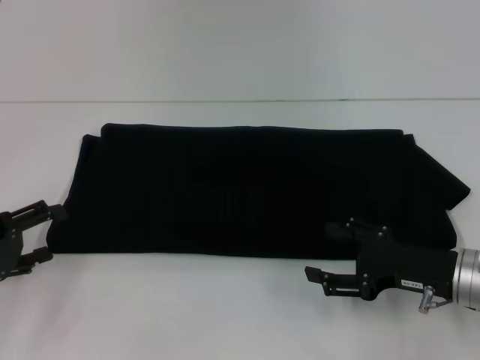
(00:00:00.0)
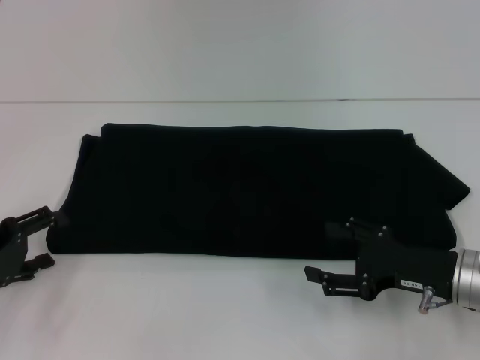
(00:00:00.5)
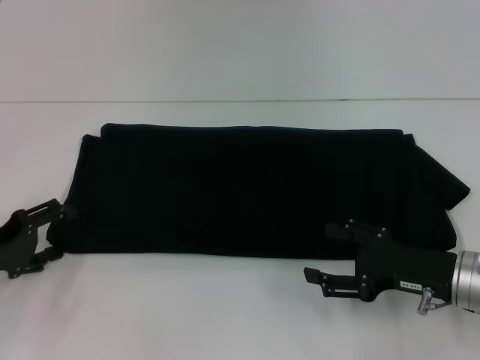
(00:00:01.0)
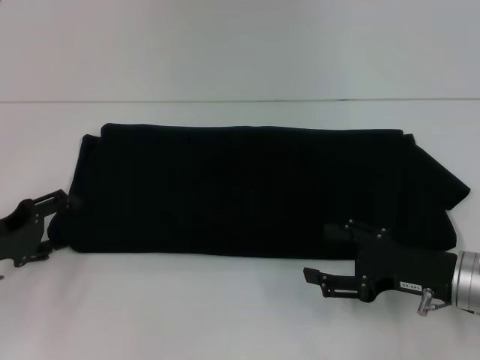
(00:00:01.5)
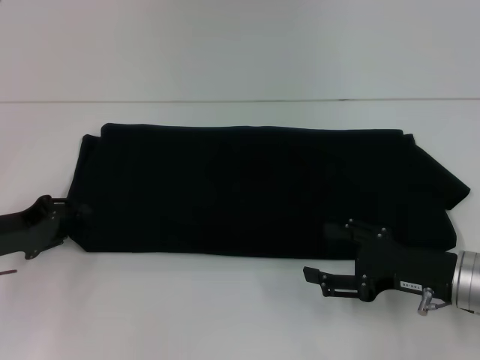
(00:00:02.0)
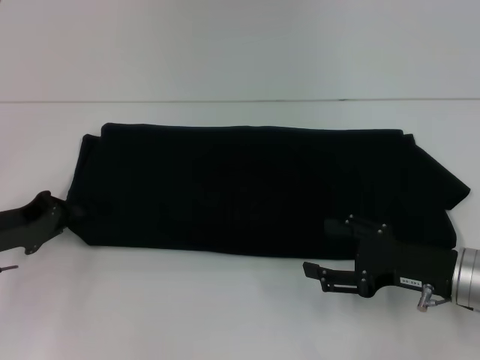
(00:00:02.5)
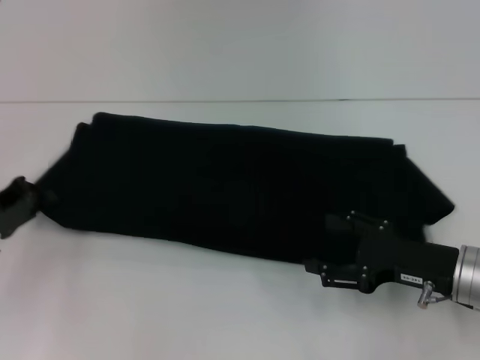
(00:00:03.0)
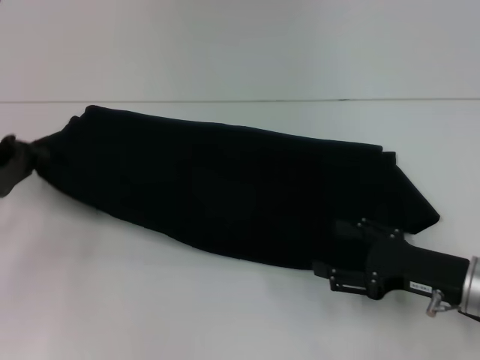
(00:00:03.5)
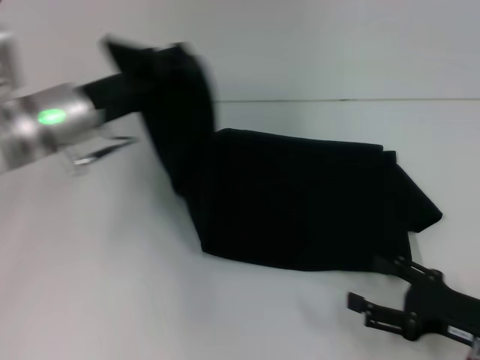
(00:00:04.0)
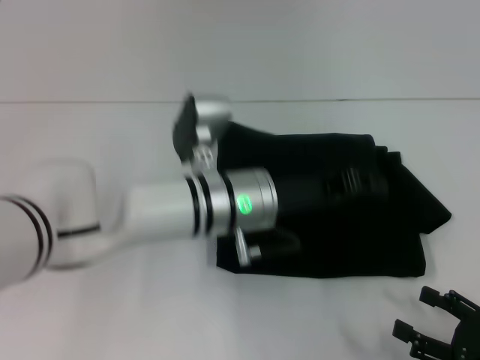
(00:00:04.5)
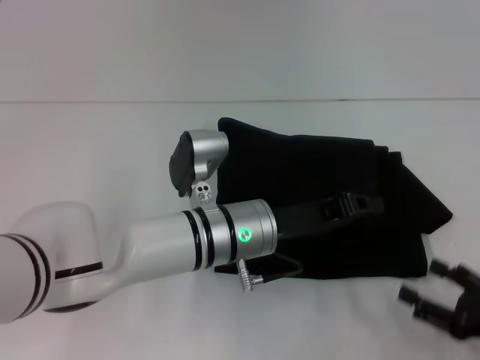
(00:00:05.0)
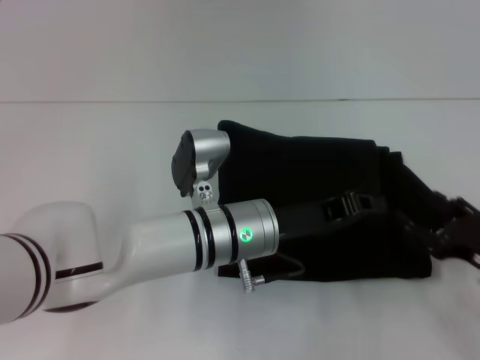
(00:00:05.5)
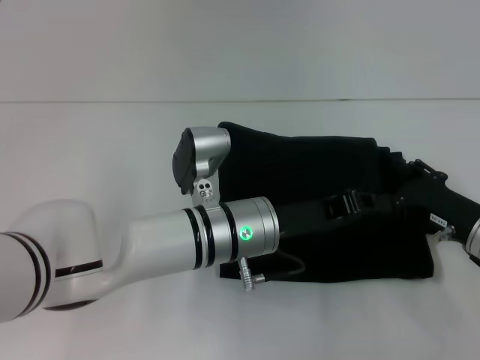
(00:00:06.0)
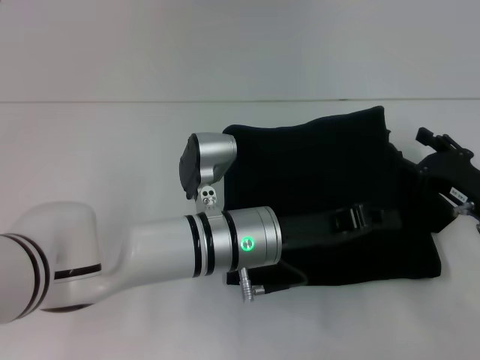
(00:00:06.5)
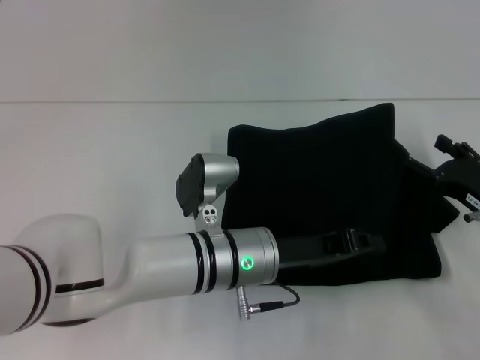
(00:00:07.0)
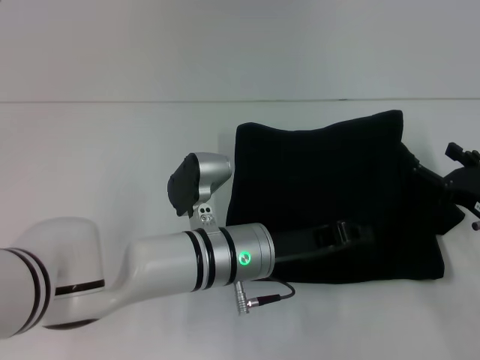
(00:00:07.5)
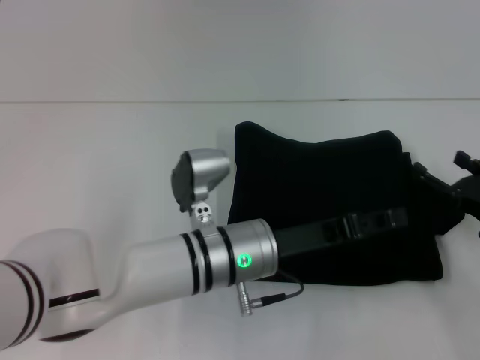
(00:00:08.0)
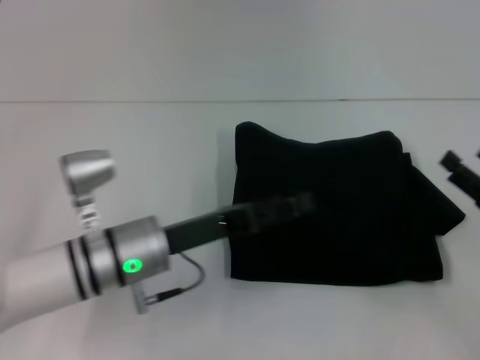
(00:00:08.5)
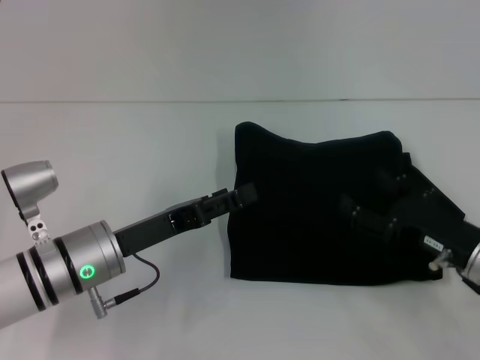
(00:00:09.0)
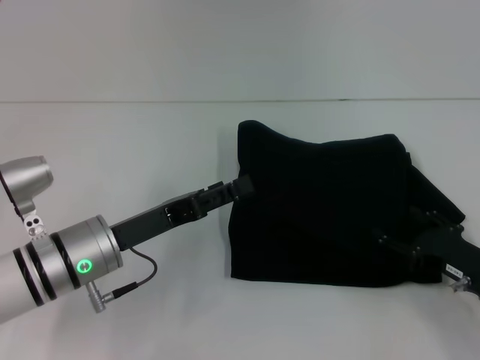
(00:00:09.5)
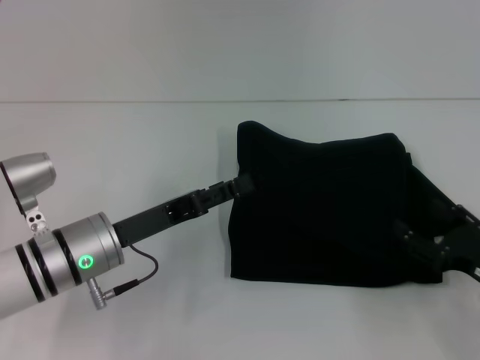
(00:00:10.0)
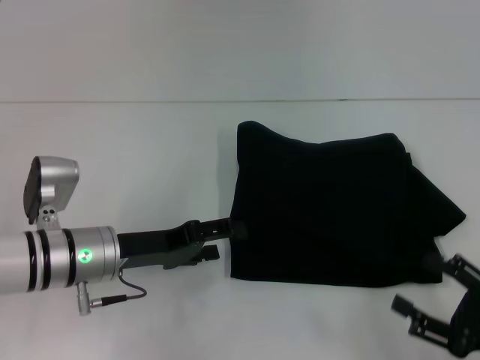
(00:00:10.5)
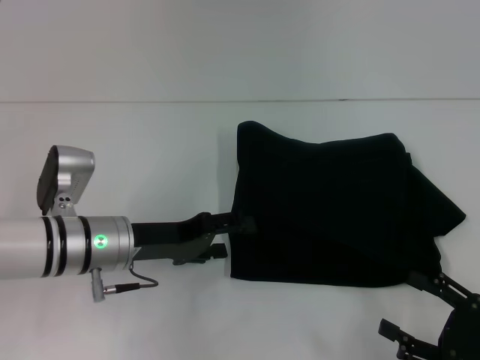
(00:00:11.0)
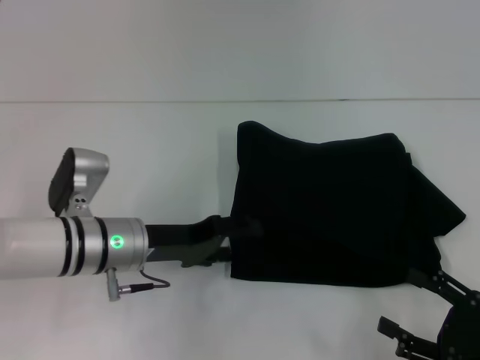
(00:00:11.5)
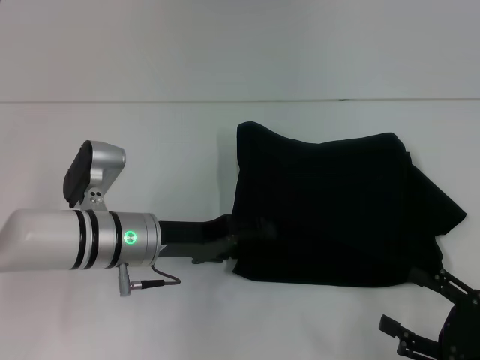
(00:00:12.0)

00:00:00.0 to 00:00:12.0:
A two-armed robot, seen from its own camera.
Step, 00:00:00.0 to 00:00:08.0: Fold the clothes with your left hand.
00:00:00.0 to 00:00:02.0: The left gripper ends up about 5 cm from where it was.
00:00:02.0 to 00:00:04.0: The left gripper shifts about 15 cm to the right, upward and forward, and closes up. The right gripper shifts some 5 cm backward.
00:00:04.0 to 00:00:06.0: The right gripper goes some 10 cm forward, while the left gripper goes approximately 20 cm to the right.
00:00:06.0 to 00:00:08.0: There are only small adjustments of the grippers.
00:00:08.0 to 00:00:10.0: The right gripper changes place by approximately 5 cm. The left gripper moves to the left, about 15 cm, and opens its fingers.
00:00:10.0 to 00:00:12.0: The right gripper shifts roughly 10 cm backward.

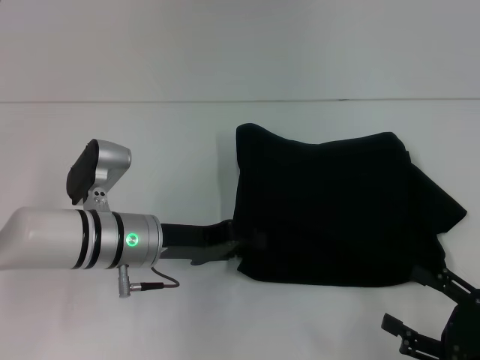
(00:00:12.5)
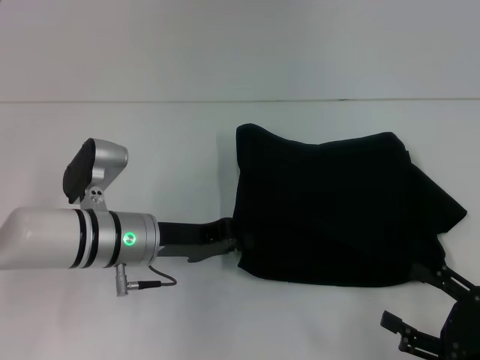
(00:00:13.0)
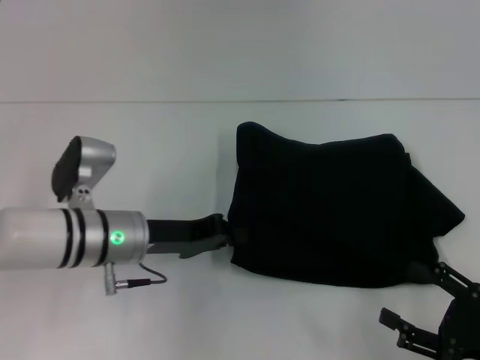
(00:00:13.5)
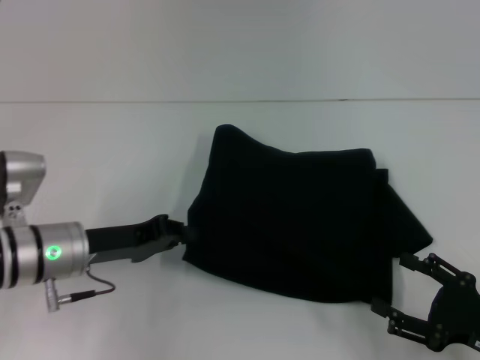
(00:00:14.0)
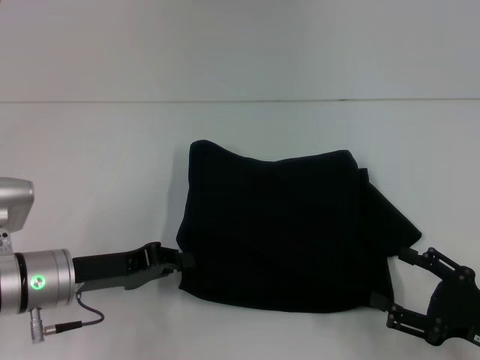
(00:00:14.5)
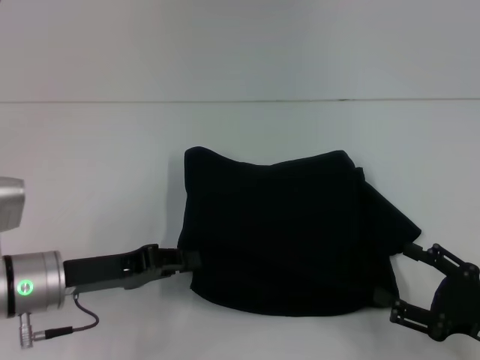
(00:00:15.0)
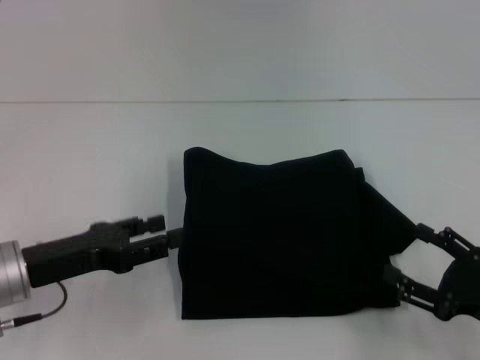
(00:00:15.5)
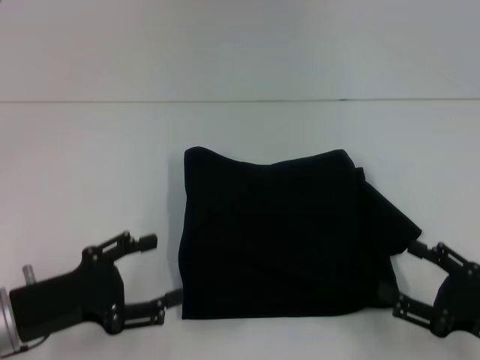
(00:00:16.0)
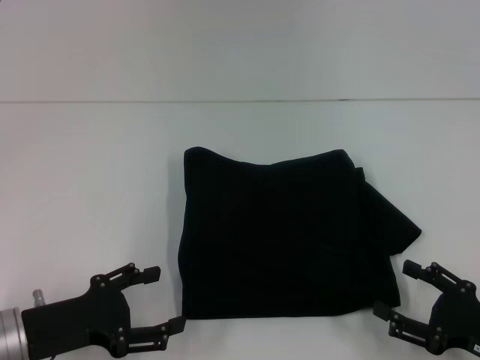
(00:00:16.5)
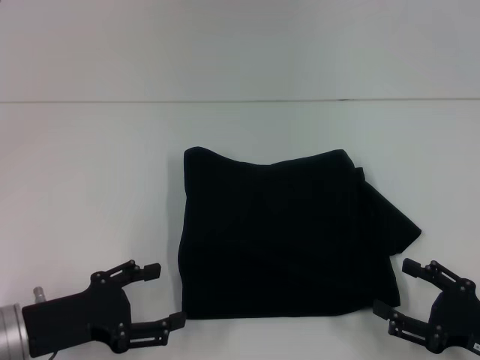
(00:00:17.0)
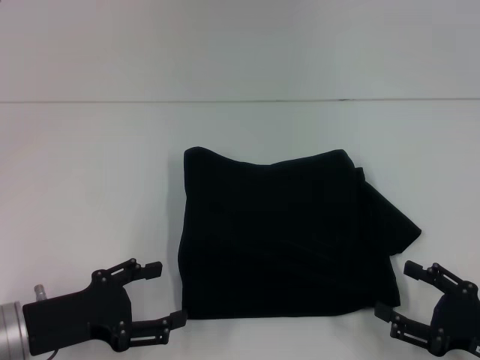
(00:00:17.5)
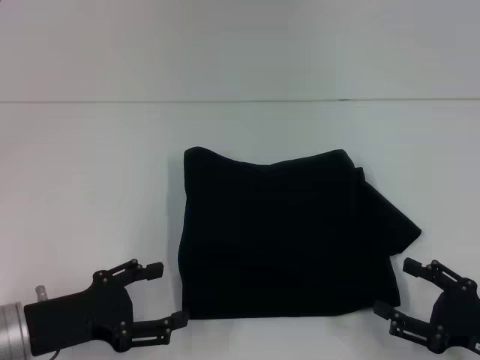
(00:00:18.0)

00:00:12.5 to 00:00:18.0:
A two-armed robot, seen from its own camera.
00:00:12.5 to 00:00:14.5: The left gripper shifts about 10 cm to the left, and closes its fingers.
00:00:14.5 to 00:00:16.0: The left gripper goes about 5 cm backward, and opens up.
00:00:16.0 to 00:00:18.0: There are only small adjustments of the grippers.
